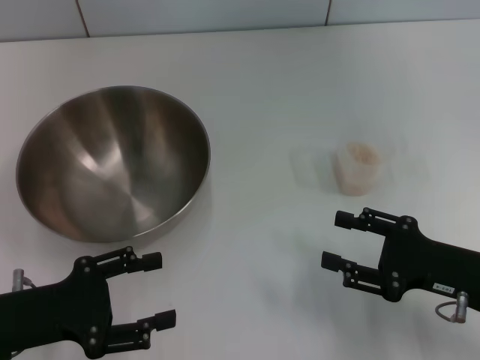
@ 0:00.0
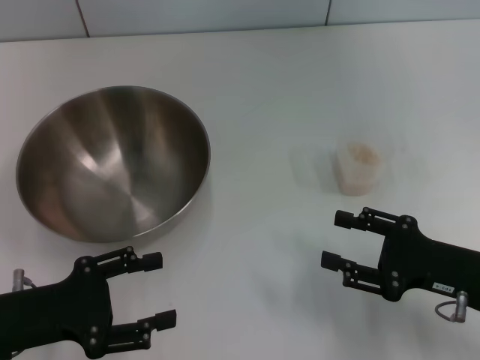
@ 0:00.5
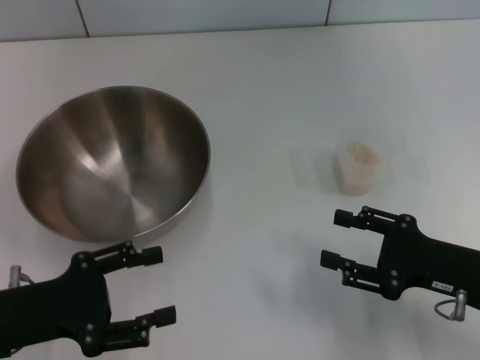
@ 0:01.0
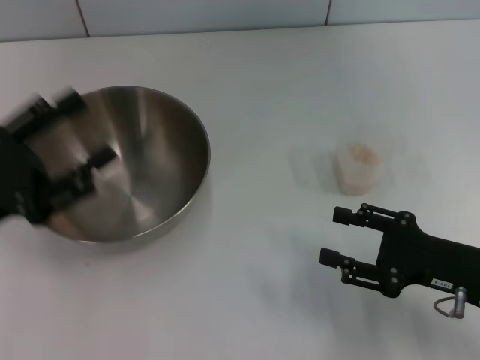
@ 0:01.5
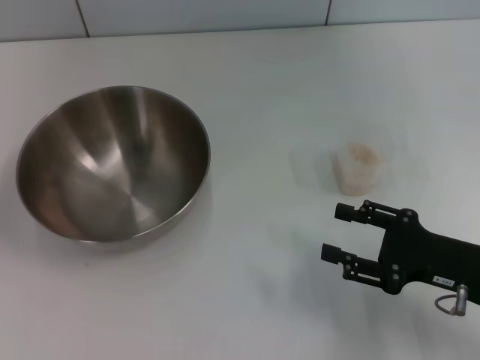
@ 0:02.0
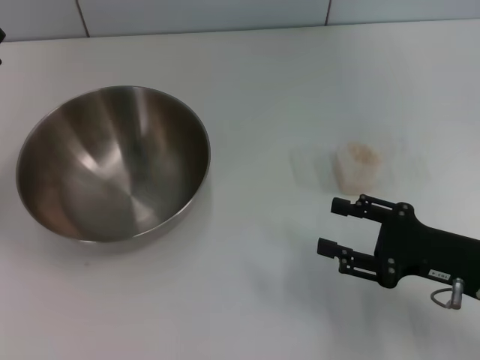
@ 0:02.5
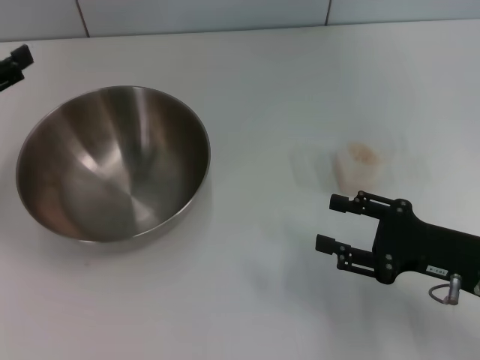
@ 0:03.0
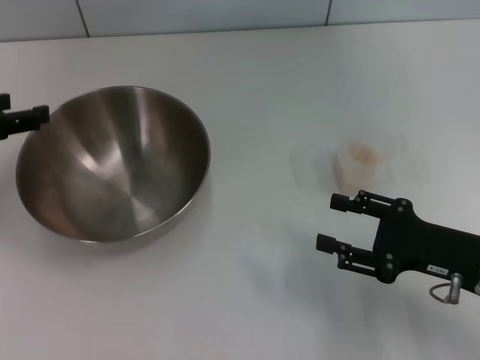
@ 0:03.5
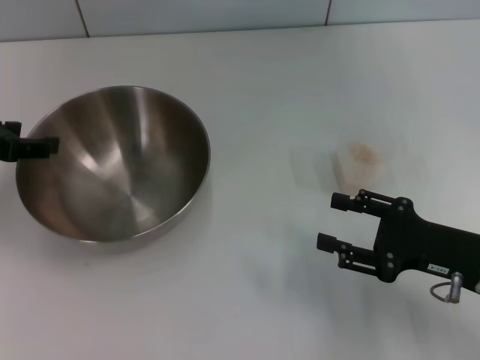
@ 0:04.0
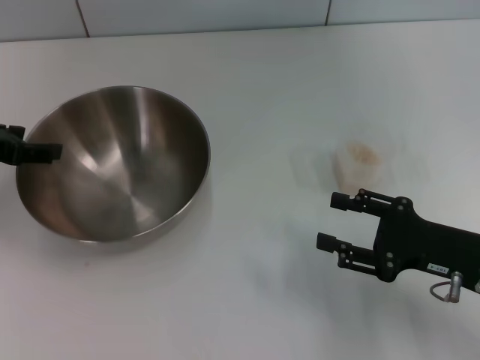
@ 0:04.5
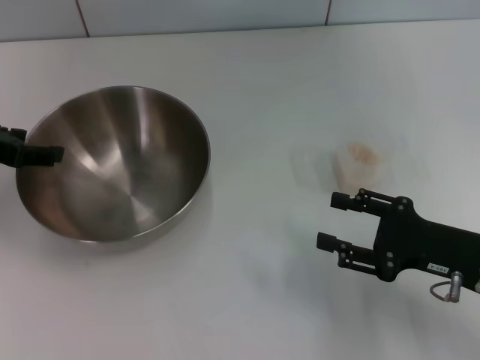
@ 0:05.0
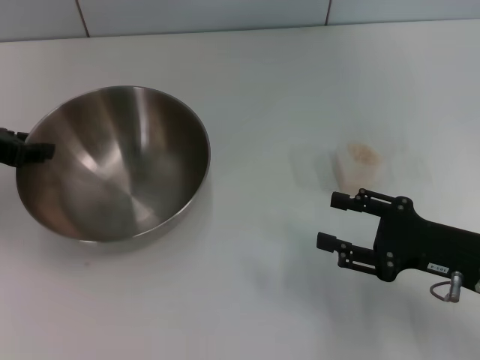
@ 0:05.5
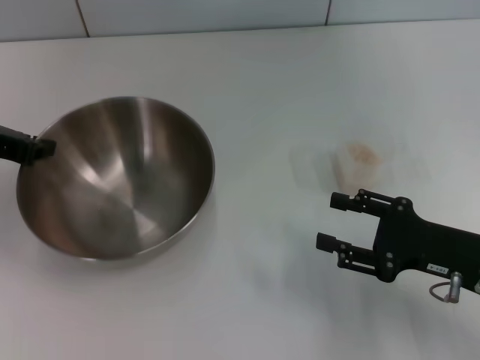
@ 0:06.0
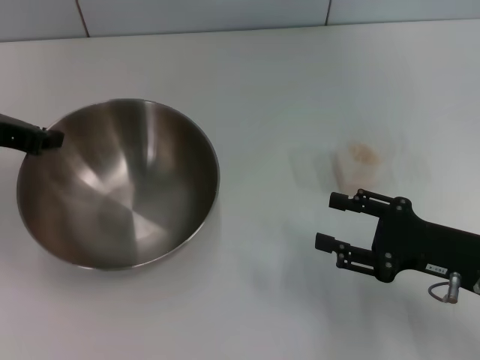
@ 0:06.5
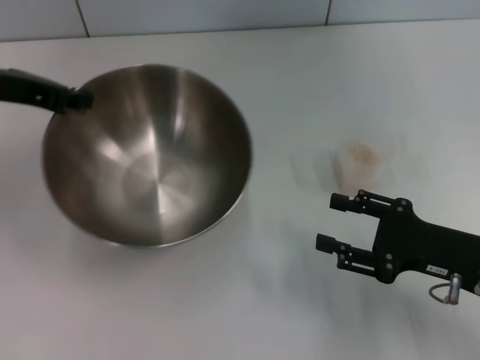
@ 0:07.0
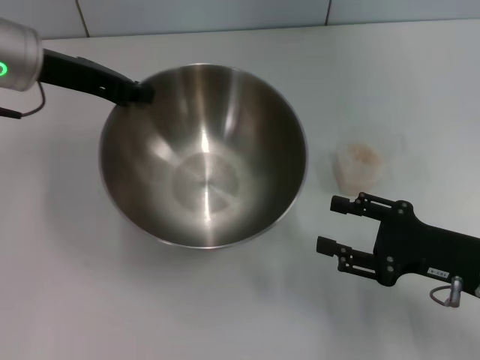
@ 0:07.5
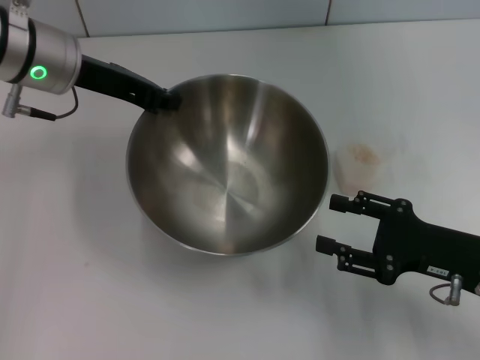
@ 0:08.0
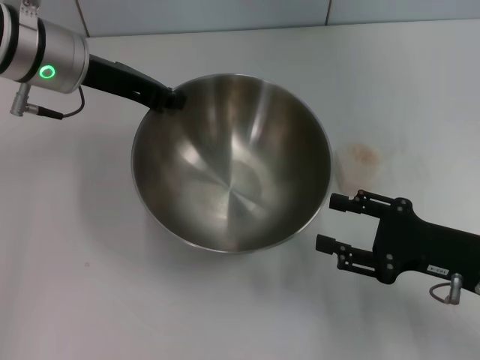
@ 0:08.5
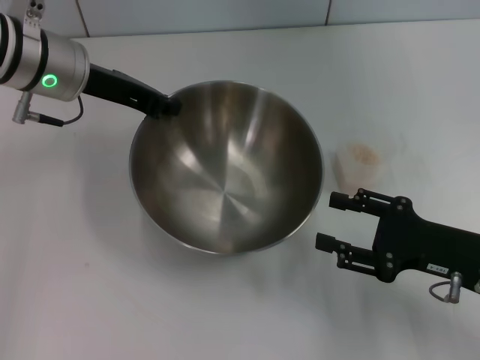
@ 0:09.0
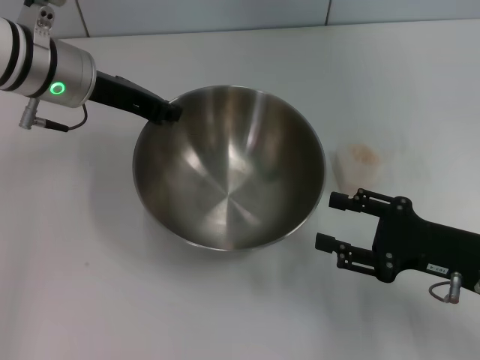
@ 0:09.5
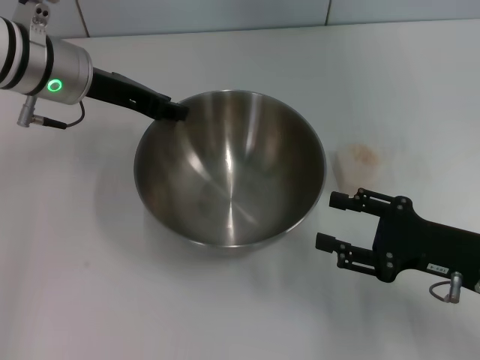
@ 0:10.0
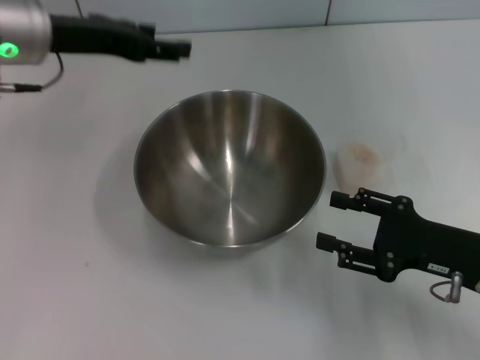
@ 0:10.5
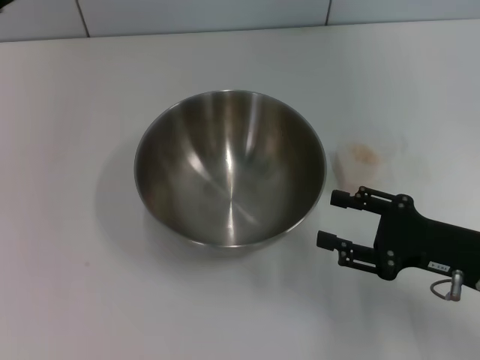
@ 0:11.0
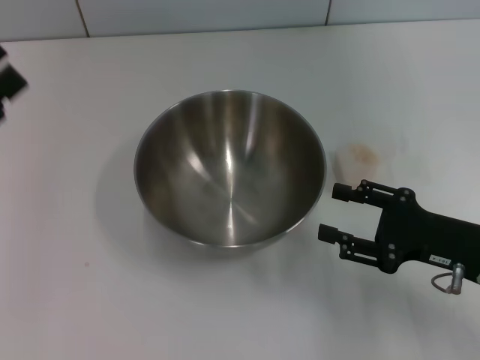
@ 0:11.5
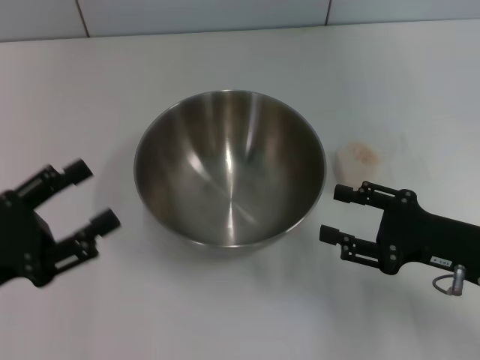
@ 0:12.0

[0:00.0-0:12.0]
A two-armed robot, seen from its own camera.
Task of the whole recording: Place the bowl in the middle of the table with one hand and pour the rice from the grain cup into it with the other hand.
Step, 0:00.0 to 0:06.0: Pick up the bowl with the left gripper.
Step, 0:06.5 to 0:12.0: Place the bowl in the center of view with the left gripper.
0:00.0 to 0:02.0: The left gripper is displaced upward and forward by about 10 cm.
0:02.0 to 0:04.0: The left gripper moves forward, some 10 cm.
0:04.0 to 0:06.0: The left gripper closes up.
0:06.0 to 0:08.0: The left gripper travels to the right and forward by roughly 15 cm.
0:08.0 to 0:10.0: The grippers stay close to where they were, moving slightly.
0:10.0 to 0:12.0: The left gripper moves backward and to the left, about 25 cm, and opens up.

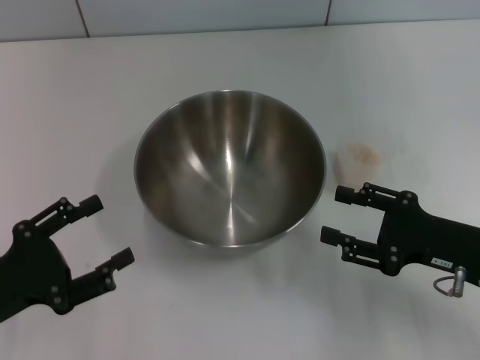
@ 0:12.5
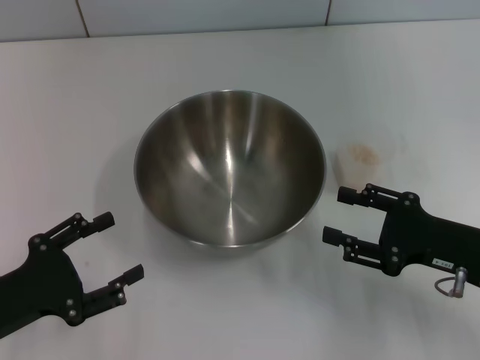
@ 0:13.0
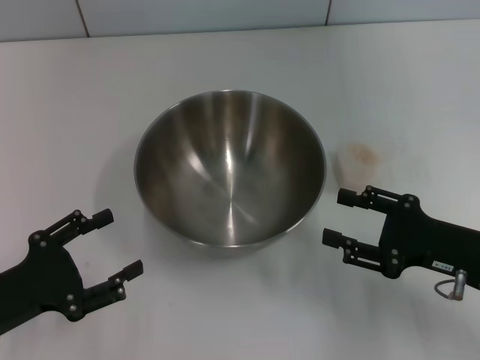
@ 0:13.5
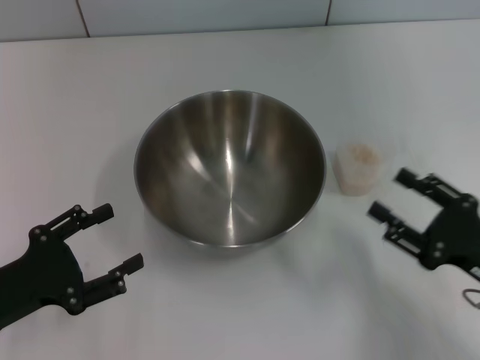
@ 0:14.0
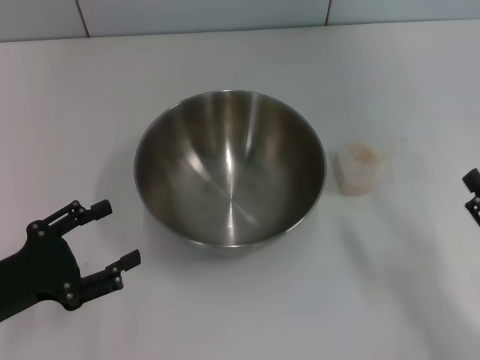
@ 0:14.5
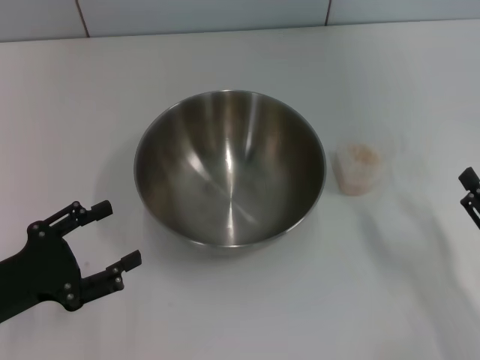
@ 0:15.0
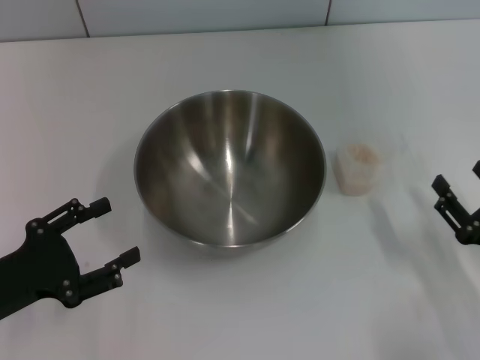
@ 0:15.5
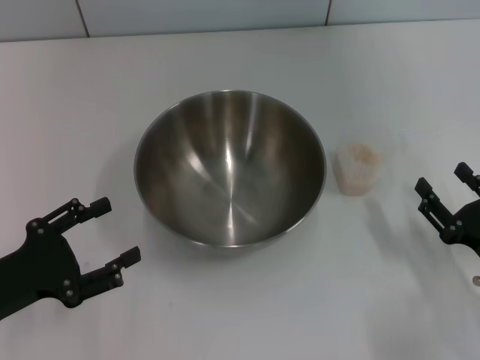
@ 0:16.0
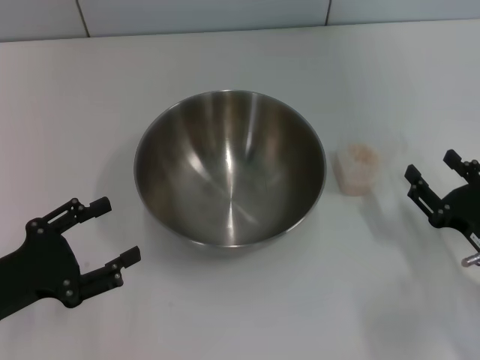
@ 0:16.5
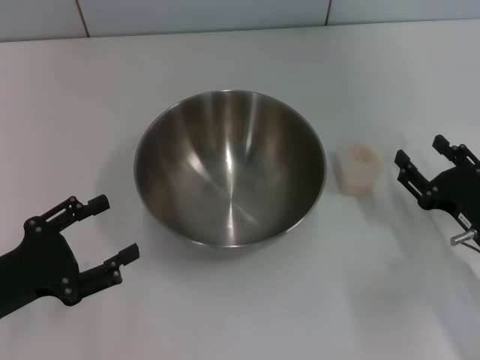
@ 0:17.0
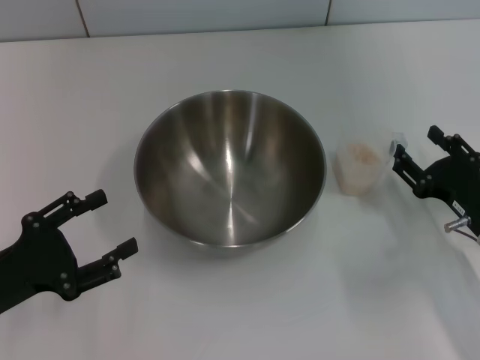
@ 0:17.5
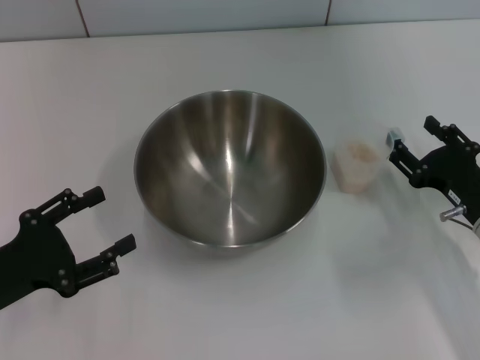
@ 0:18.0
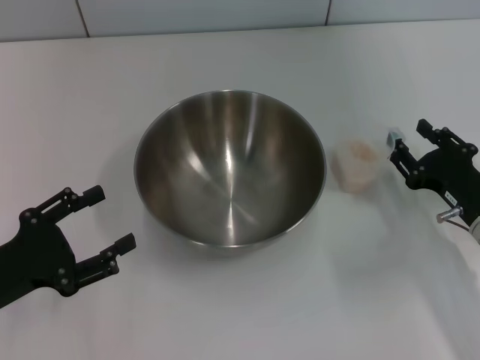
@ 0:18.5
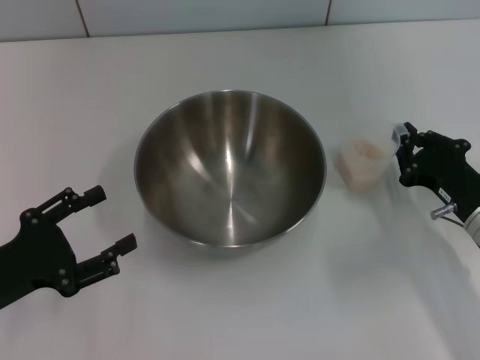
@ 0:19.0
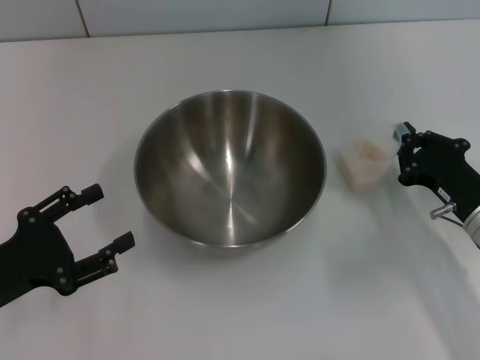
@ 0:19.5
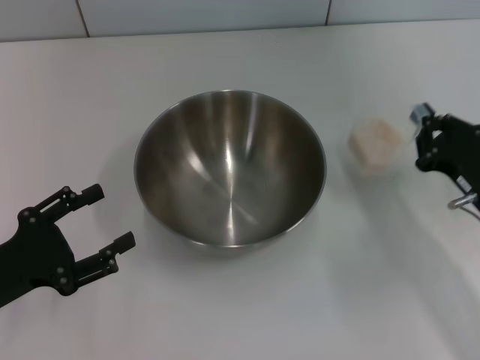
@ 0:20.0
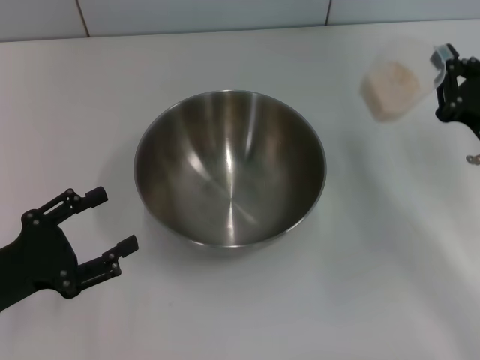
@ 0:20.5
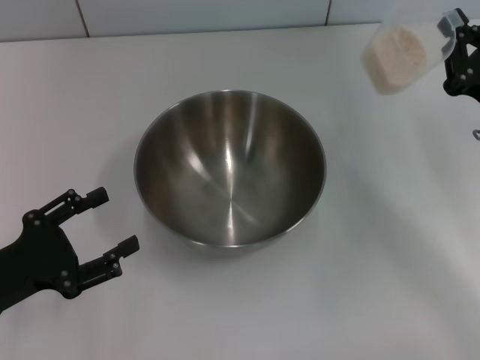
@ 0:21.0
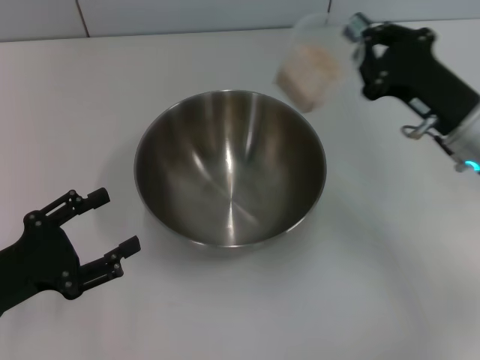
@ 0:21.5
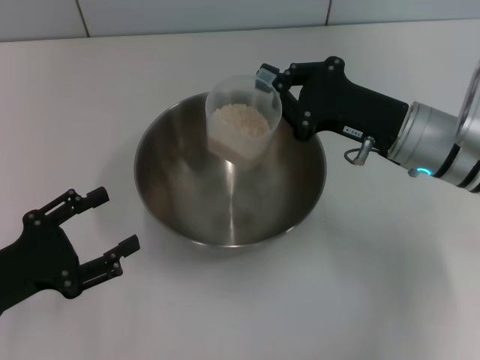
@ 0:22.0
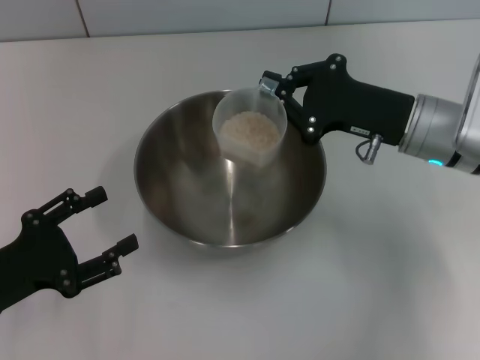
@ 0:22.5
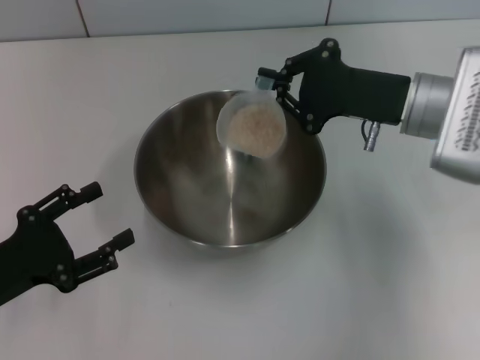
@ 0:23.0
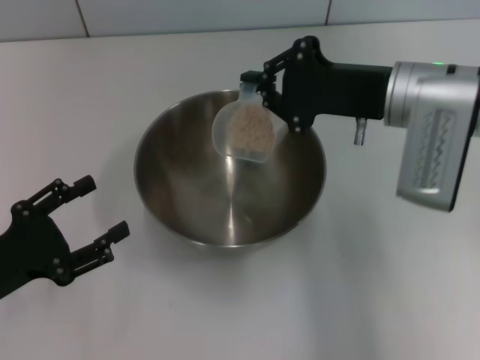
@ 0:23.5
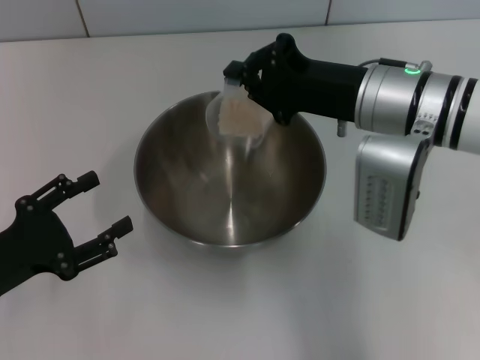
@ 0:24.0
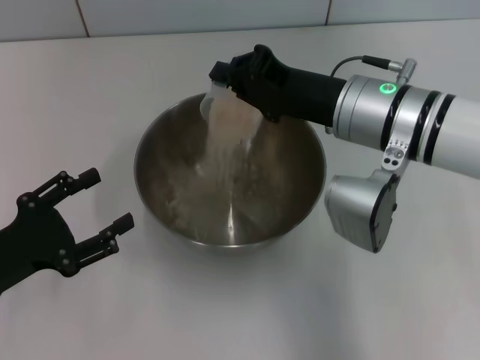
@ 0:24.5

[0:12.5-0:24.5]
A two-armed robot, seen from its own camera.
Task of the whole recording: Place the bowl in the middle of the table with one hand and pour the rice from the grain cup into it with the other hand.
Step, 0:12.5 to 0:21.0: Pick up the cup with rice in it with the right gripper.
0:12.5 to 0:14.5: The right gripper moves backward, roughly 10 cm.
0:14.5 to 0:16.5: The right gripper heads forward, covering some 5 cm.
0:16.5 to 0:18.5: The right gripper goes some 5 cm forward.
0:18.5 to 0:20.5: The right gripper goes about 5 cm upward, and closes.
0:20.5 to 0:22.5: The right gripper moves to the left and forward, about 10 cm.
0:22.5 to 0:24.5: The right gripper moves to the left, about 5 cm.

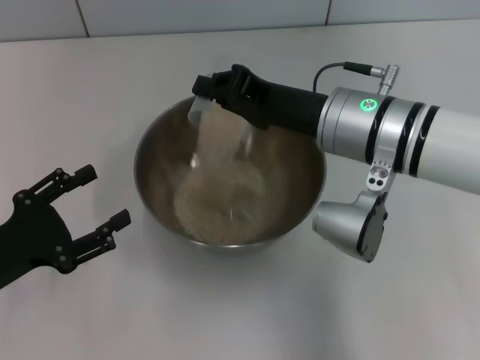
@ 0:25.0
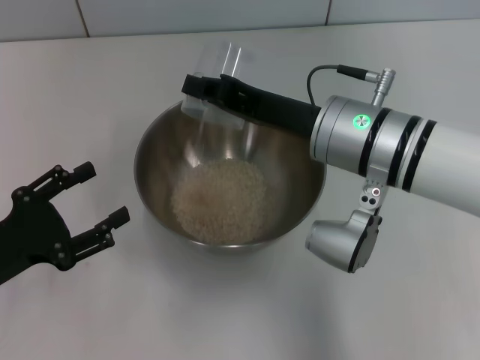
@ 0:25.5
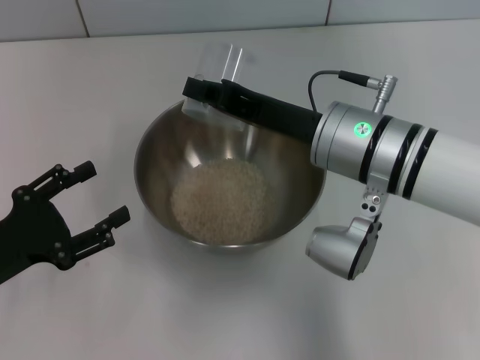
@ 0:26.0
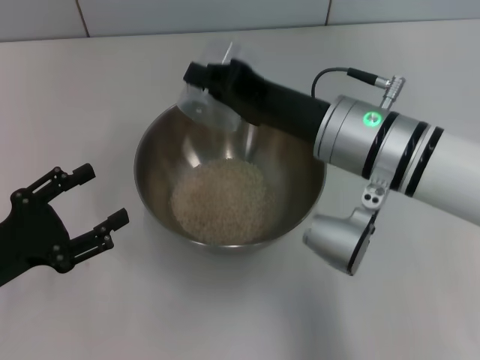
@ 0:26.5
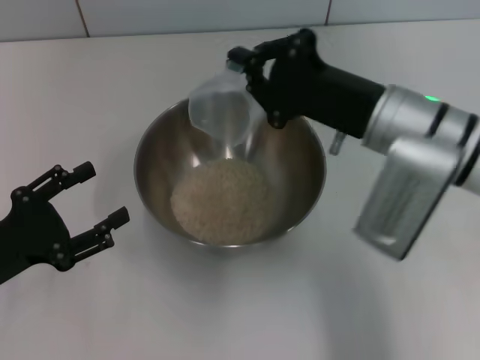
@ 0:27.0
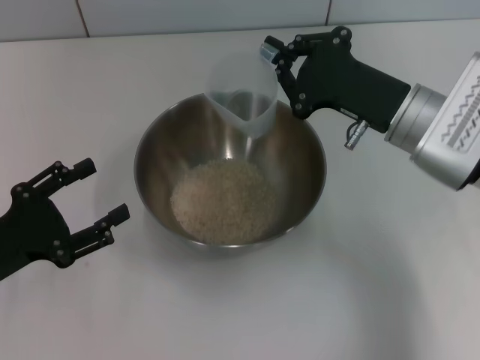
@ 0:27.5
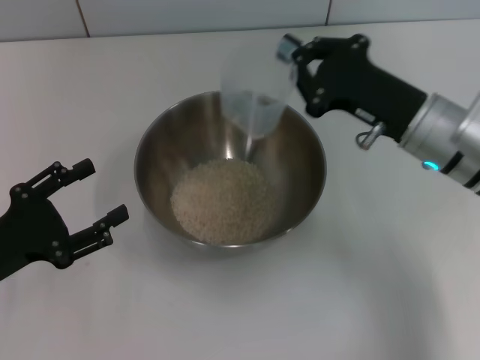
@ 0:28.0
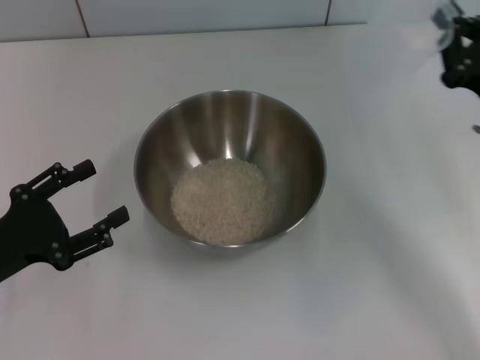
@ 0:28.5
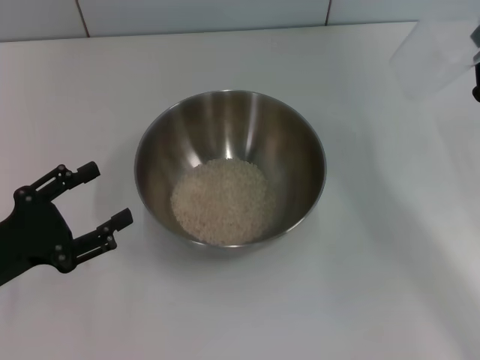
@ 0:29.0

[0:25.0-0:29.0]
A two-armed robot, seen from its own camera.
Task of the whole recording: Place the bowl in the middle of the table with one hand and pour the rice from the grain cup into it with the other hand.
Step, 0:25.0 to 0:28.5: Pour the rice from the cup into the bowl with the right gripper.
0:27.0 to 0:29.0: The right gripper shifts some 15 cm to the right.
